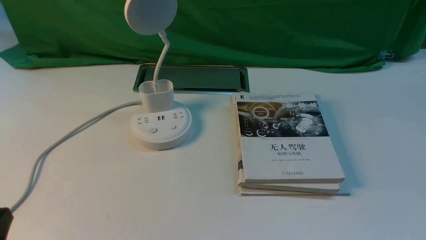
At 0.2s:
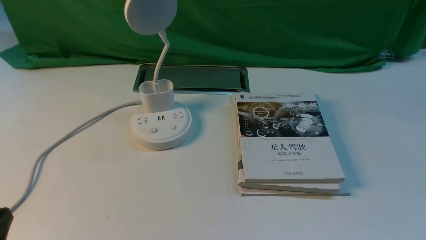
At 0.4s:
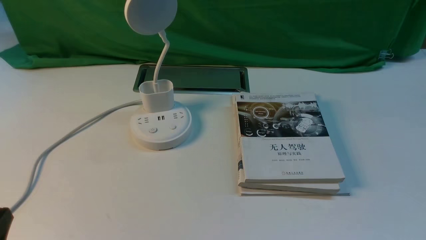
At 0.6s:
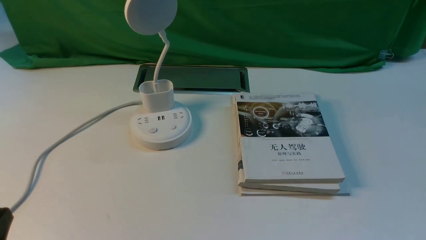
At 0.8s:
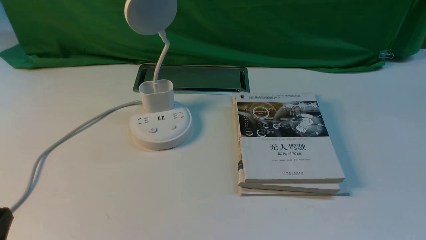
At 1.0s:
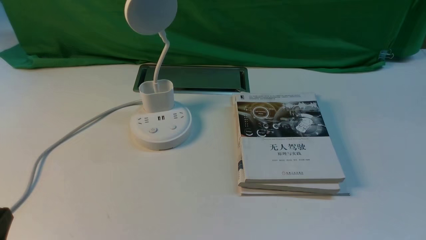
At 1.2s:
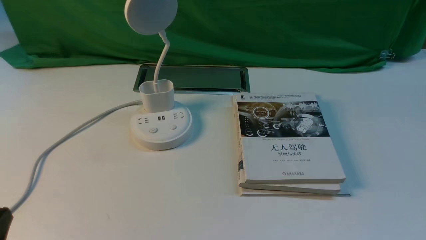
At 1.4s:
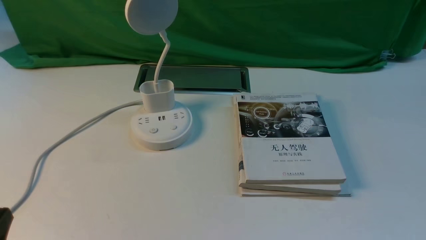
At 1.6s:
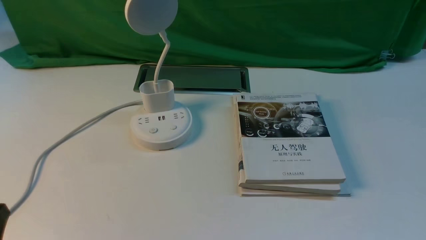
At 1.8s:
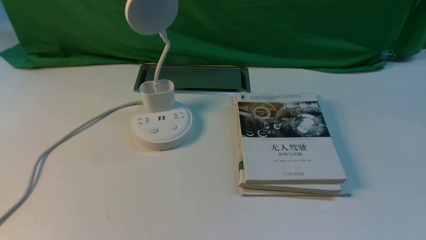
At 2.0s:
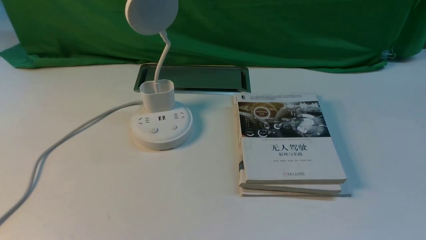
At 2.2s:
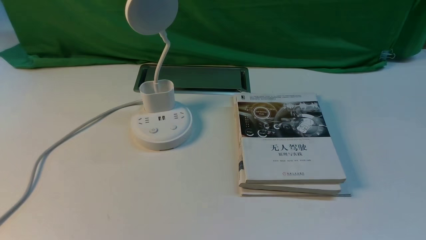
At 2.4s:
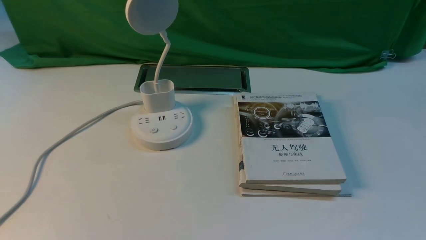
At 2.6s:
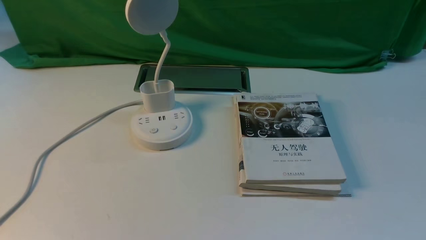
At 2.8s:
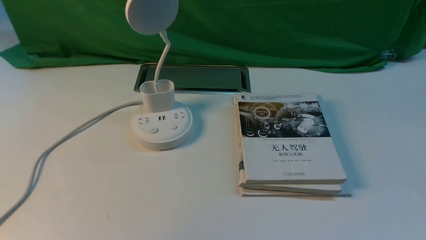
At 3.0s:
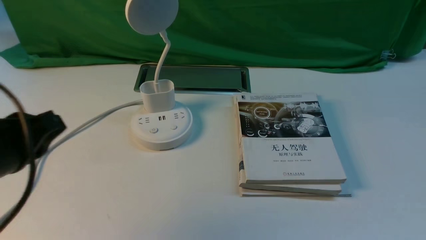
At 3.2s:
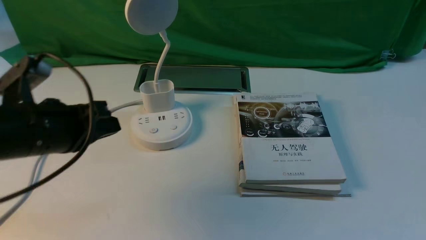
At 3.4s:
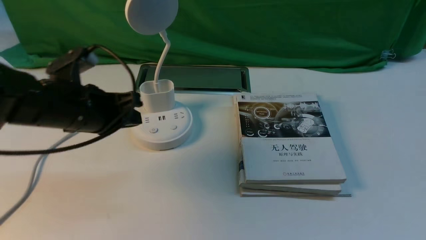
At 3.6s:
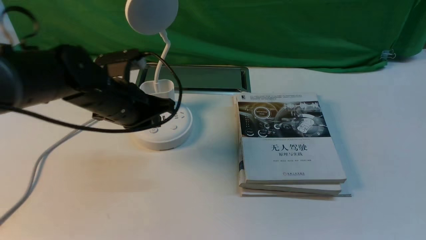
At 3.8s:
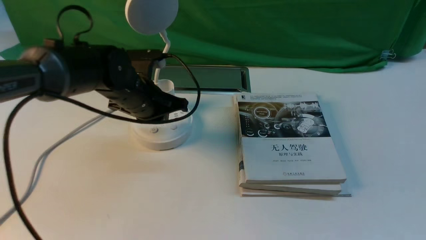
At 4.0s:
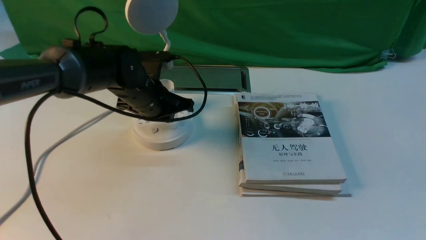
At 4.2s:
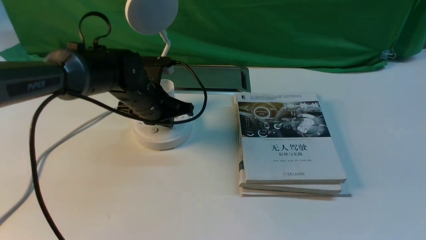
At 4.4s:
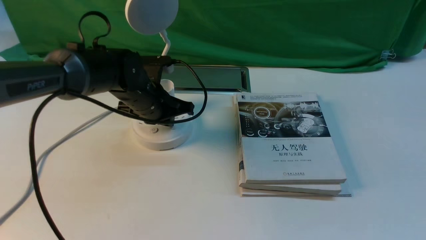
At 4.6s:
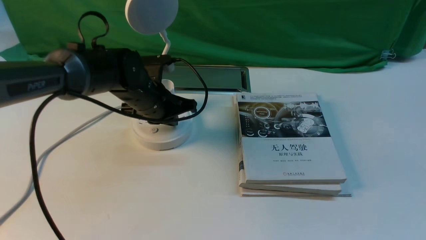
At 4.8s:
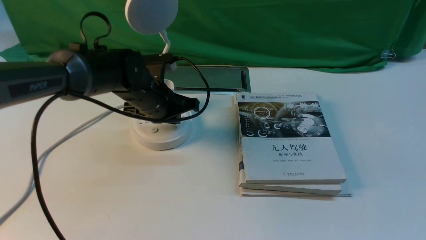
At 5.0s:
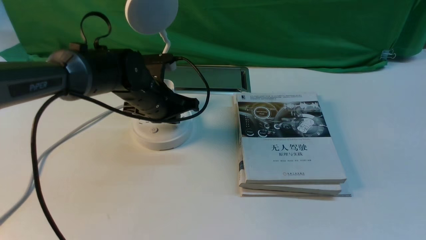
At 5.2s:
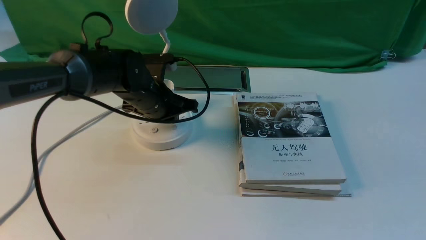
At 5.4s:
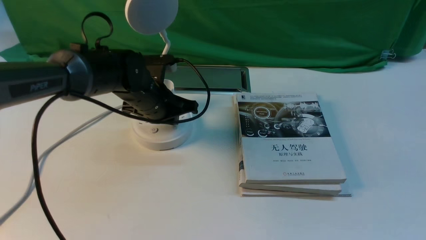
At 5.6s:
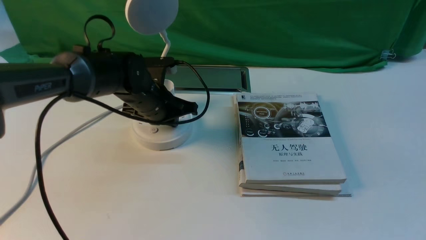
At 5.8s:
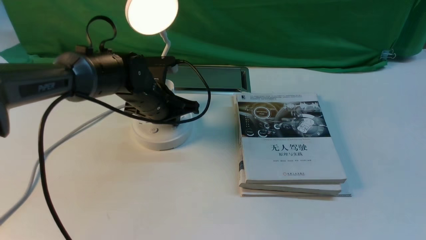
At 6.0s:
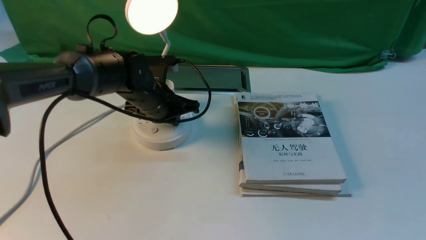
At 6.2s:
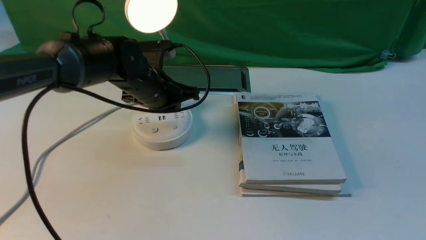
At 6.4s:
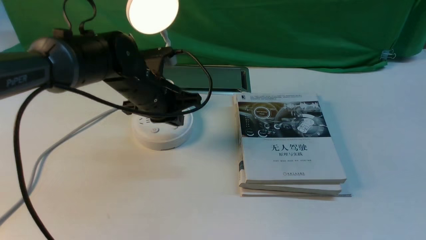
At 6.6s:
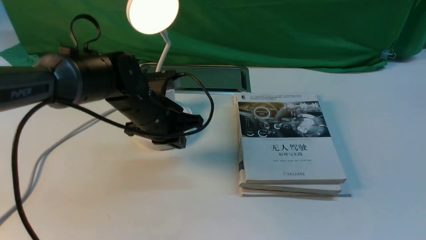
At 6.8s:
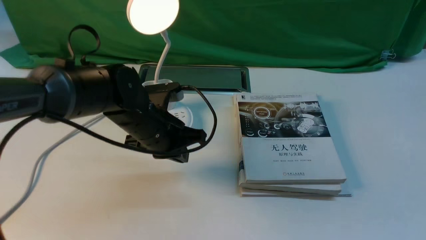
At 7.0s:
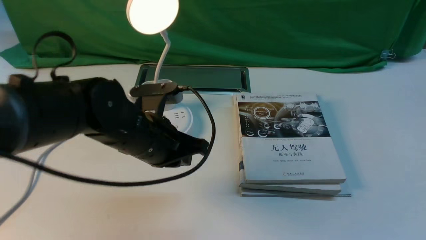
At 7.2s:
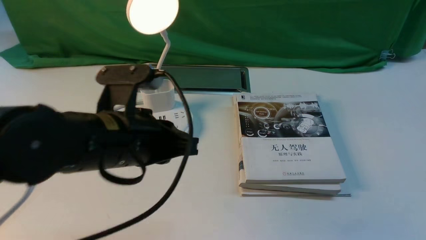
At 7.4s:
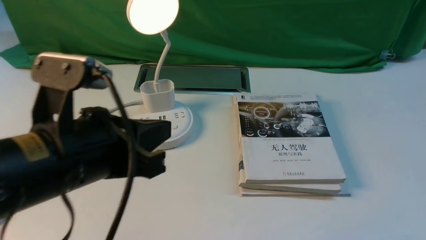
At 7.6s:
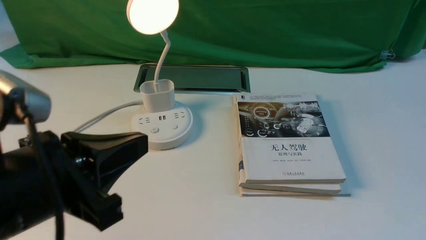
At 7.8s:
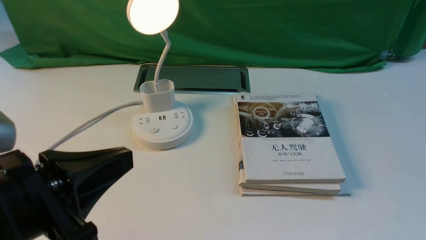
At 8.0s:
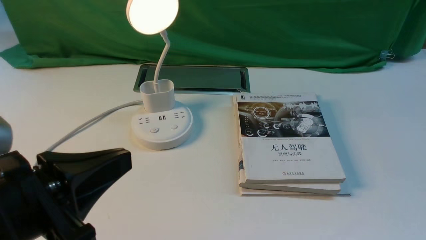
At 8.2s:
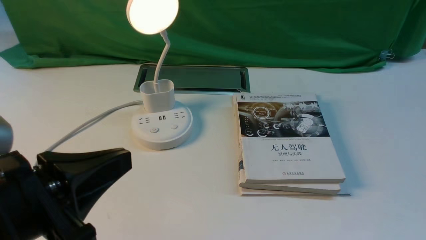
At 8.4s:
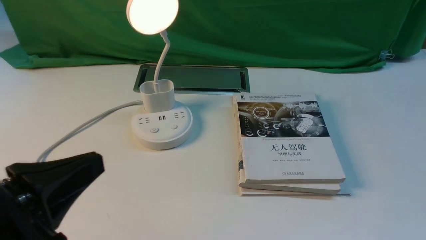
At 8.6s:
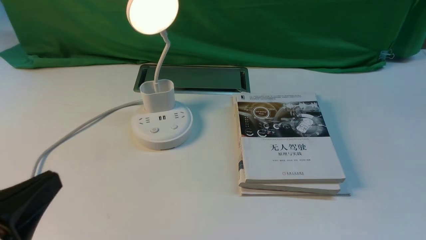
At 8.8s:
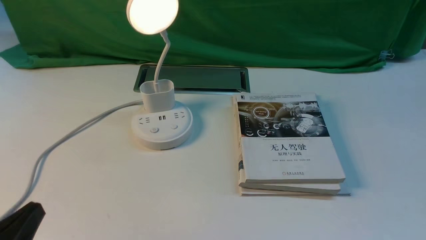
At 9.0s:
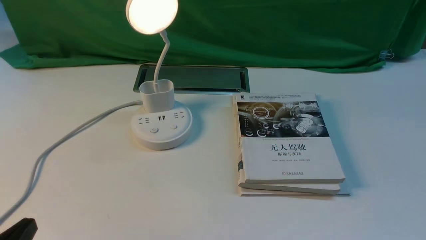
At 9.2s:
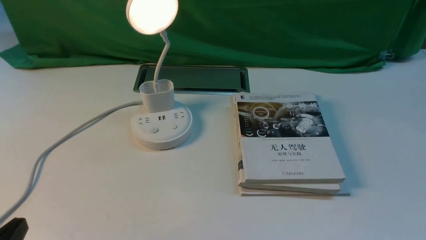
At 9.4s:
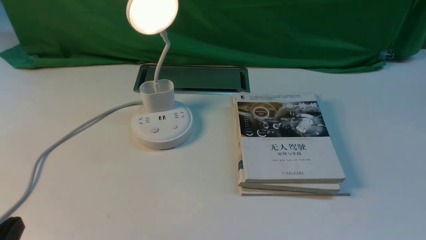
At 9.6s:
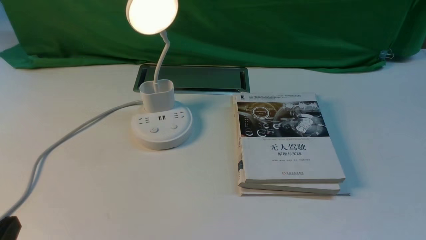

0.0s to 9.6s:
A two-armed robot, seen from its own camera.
Step, 0.0s to 6.0s: use the left arm to press the button switch on the lamp holder.
1.6s to 3.2s: The left gripper travels forward and upward by roughly 20 cm.
3.2s to 4.8s: The left gripper travels forward, to the right and downward by some 25 cm.
4.8s to 6.4s: The grippers stay close to where they were, moving slightly.
6.4s to 8.0s: The left gripper travels backward by some 30 cm.
8.0s to 9.6s: The left gripper heads downward and to the left, covering roughly 15 cm.

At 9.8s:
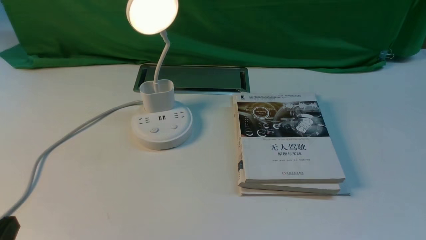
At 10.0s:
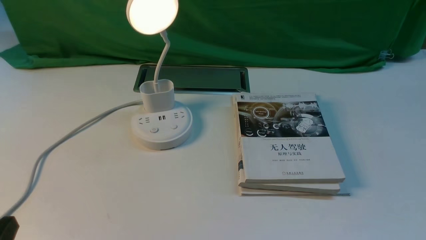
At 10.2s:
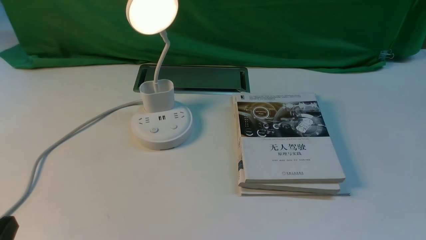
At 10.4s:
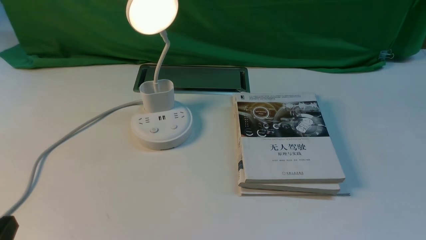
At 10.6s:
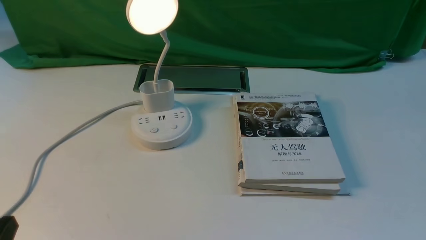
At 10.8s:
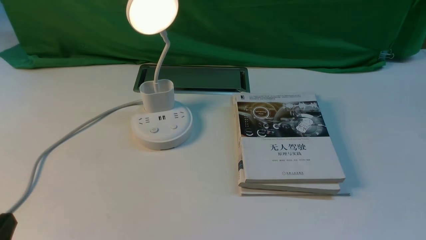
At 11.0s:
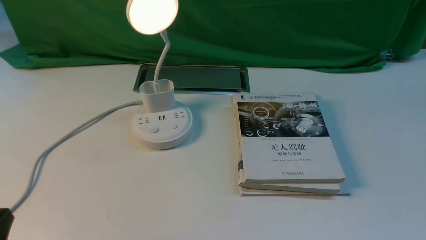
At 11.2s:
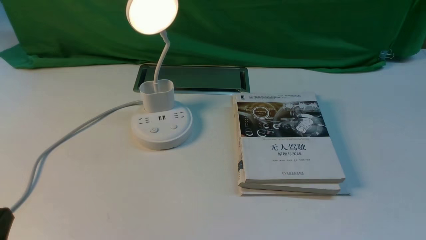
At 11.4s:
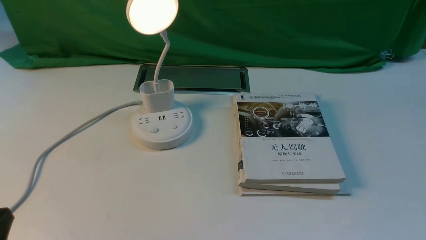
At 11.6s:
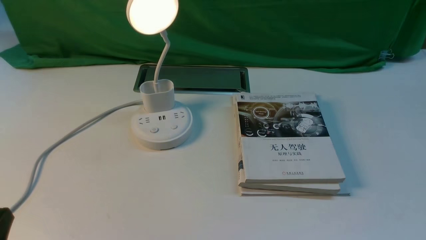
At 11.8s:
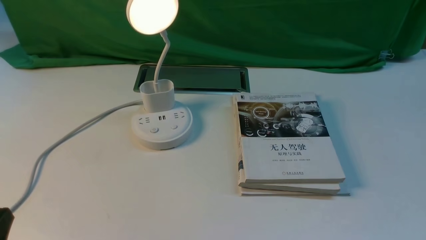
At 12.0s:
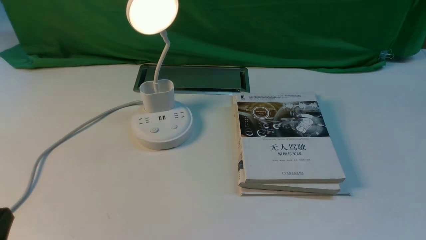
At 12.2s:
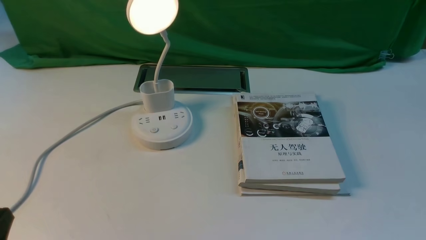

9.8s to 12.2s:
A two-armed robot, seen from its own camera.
9.8s to 12.2s: Both grippers stay about where they are.

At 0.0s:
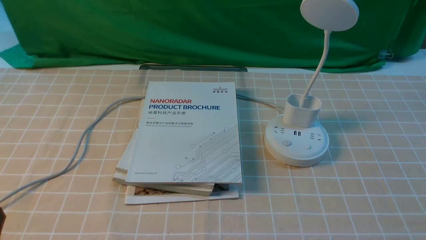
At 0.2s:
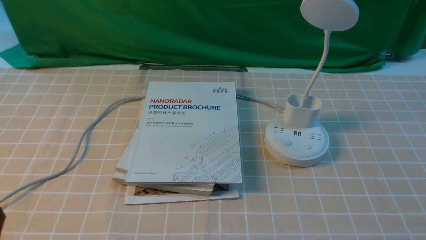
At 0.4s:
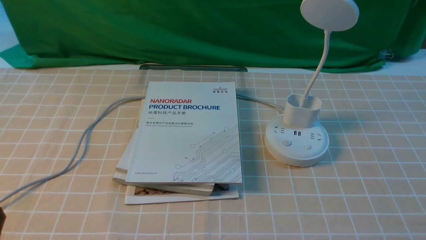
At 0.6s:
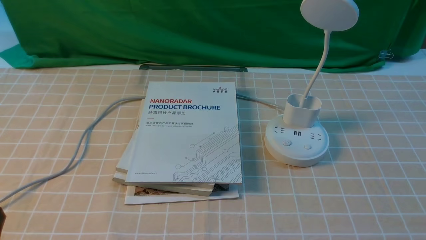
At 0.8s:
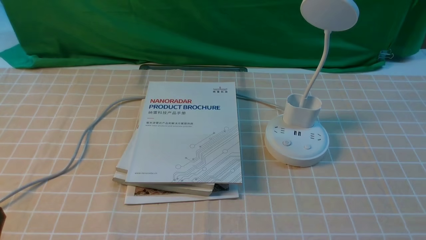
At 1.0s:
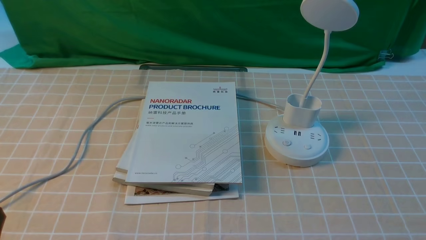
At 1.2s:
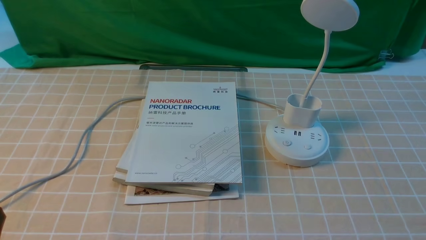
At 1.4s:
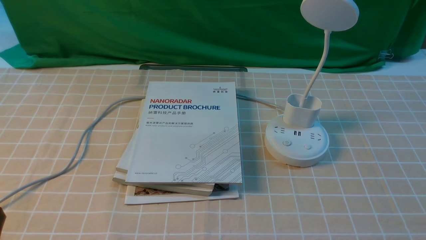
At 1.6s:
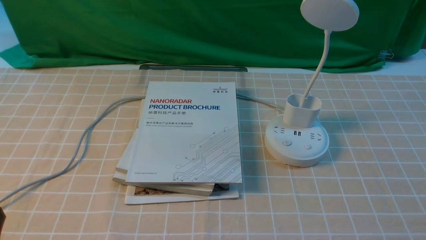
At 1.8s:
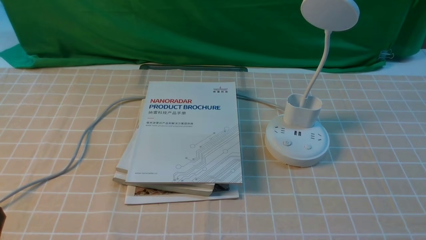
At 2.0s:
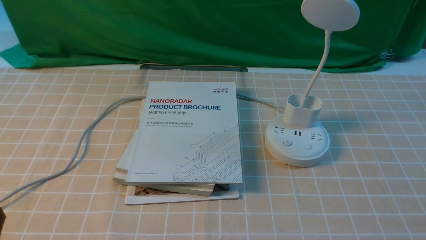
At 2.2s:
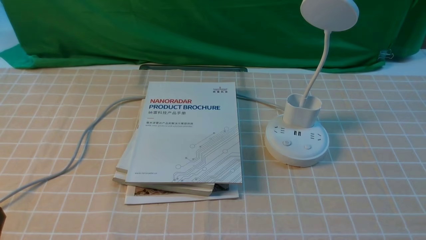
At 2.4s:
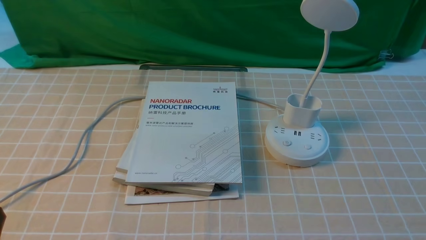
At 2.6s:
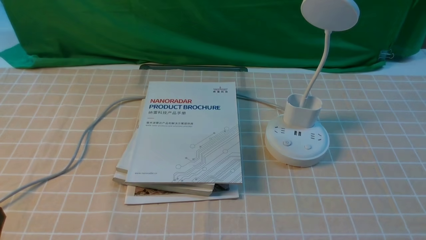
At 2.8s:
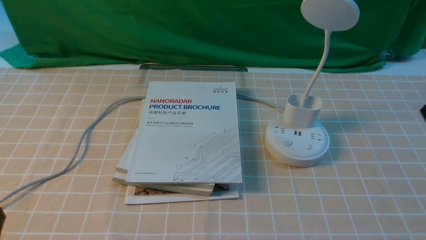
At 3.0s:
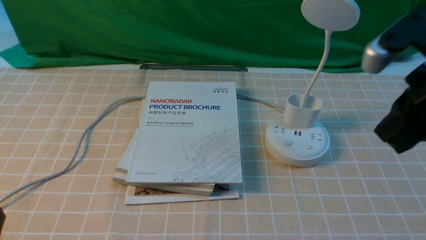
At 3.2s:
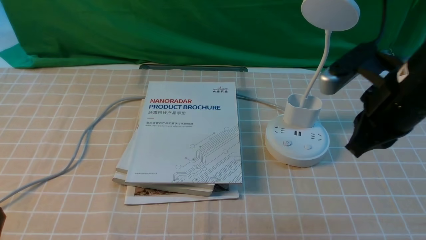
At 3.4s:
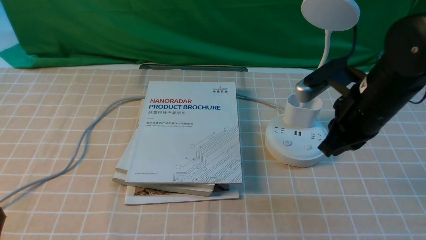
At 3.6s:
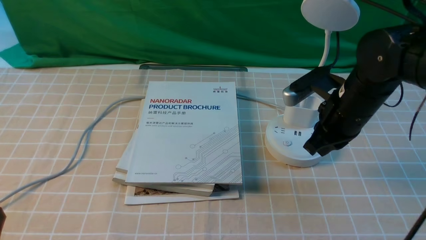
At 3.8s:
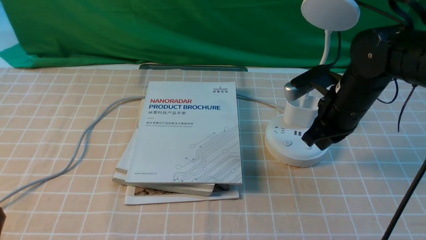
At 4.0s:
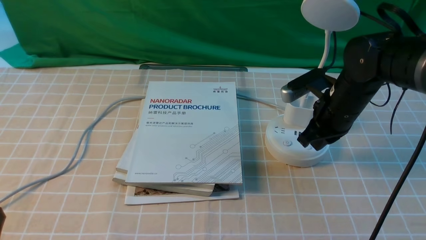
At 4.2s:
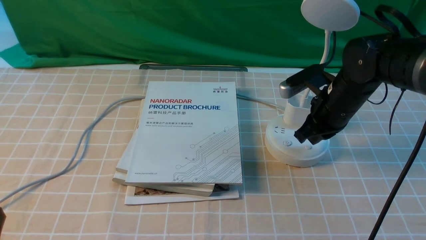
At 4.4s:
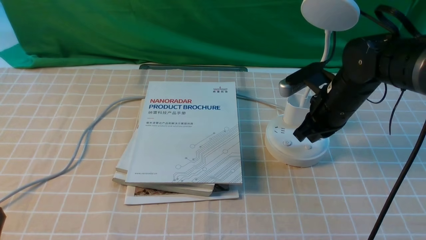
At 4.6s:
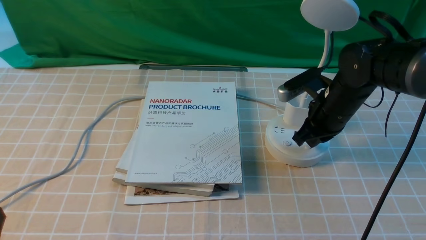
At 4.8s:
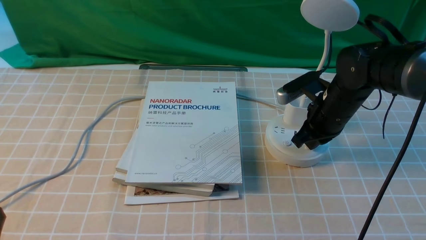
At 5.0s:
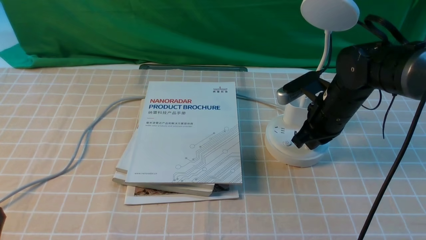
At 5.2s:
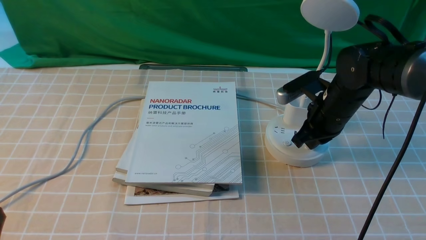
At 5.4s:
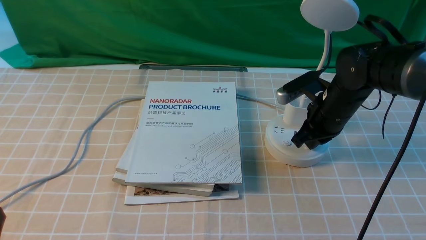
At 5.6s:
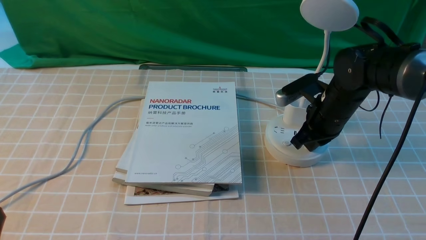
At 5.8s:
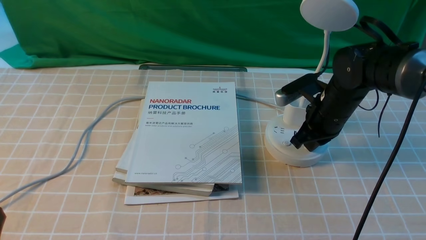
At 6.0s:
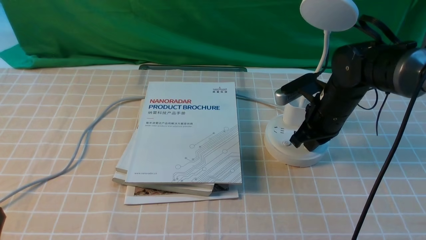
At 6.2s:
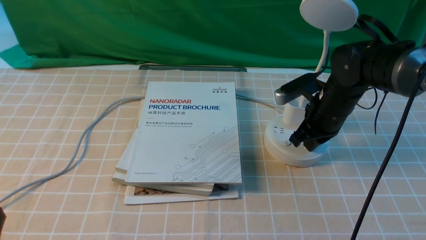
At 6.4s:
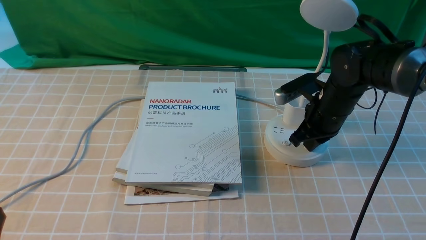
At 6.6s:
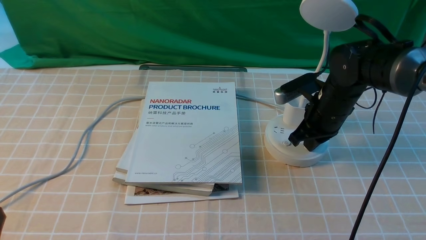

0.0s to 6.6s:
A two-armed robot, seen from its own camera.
1.6s to 3.2s: The right gripper goes some 25 cm forward, upward and to the left, and closes its fingers.
3.2s to 5.0s: The right gripper shifts about 20 cm downward and forward.
5.0s to 6.6s: The grippers stay close to where they were, moving slightly.
